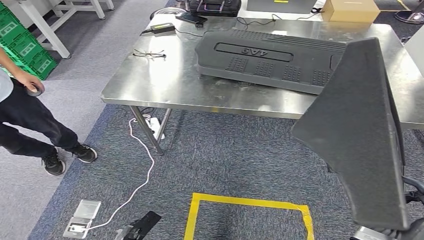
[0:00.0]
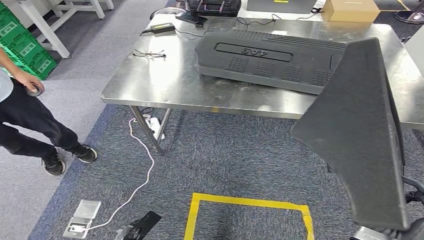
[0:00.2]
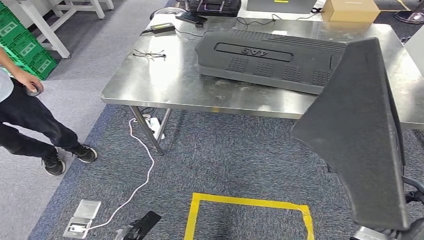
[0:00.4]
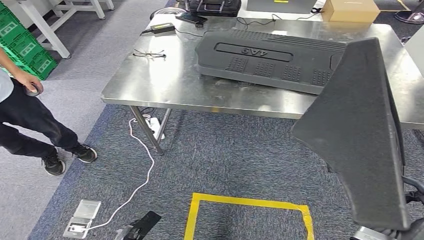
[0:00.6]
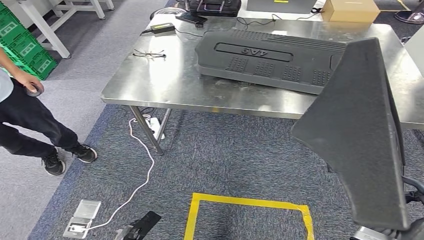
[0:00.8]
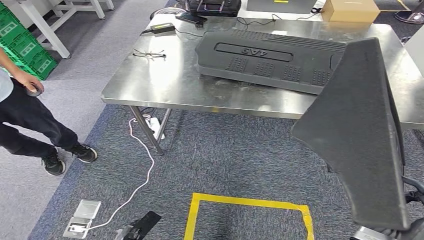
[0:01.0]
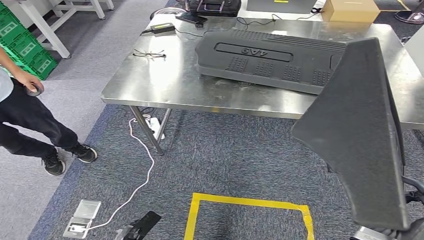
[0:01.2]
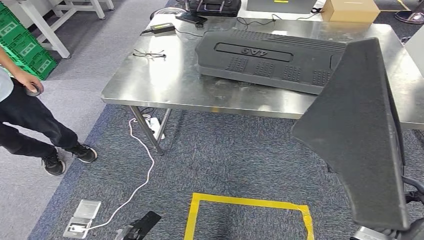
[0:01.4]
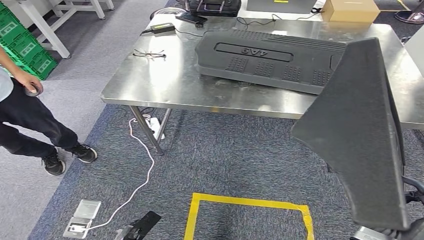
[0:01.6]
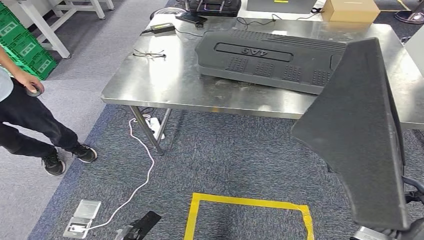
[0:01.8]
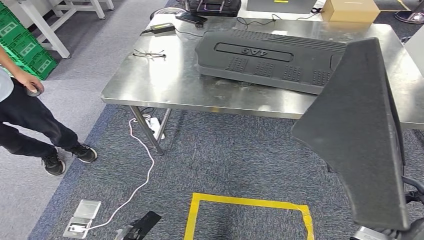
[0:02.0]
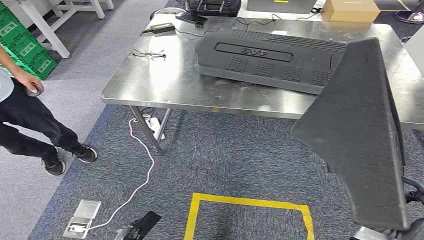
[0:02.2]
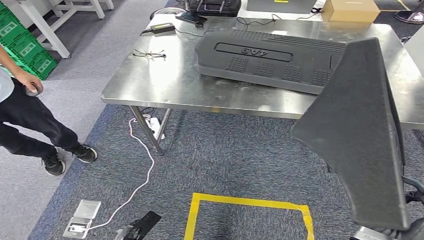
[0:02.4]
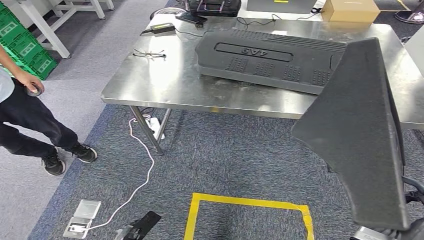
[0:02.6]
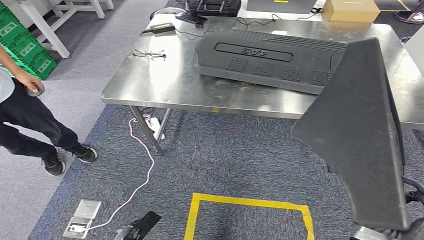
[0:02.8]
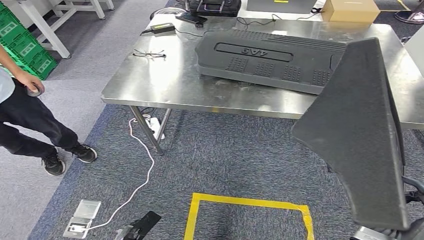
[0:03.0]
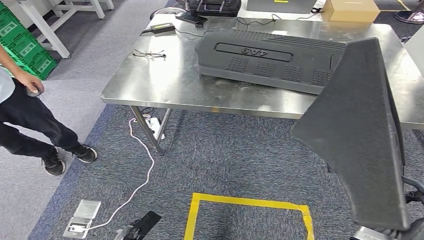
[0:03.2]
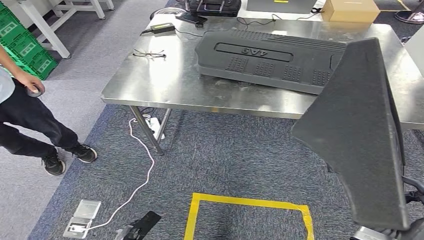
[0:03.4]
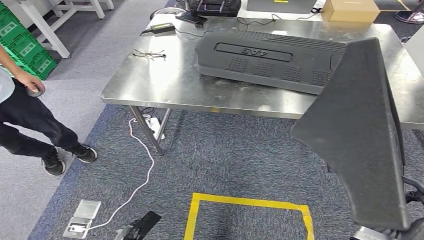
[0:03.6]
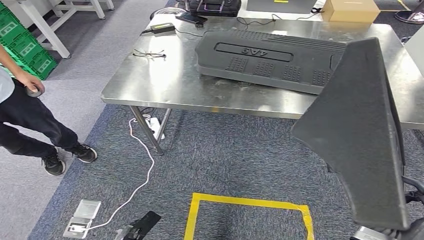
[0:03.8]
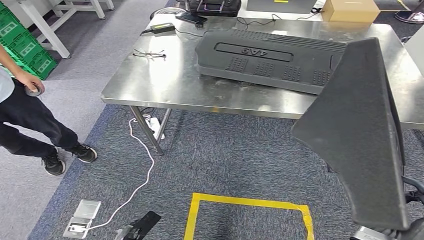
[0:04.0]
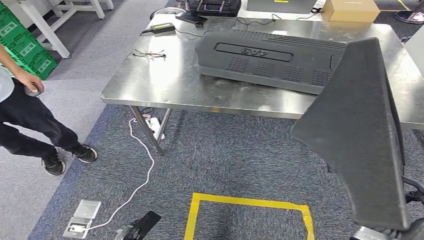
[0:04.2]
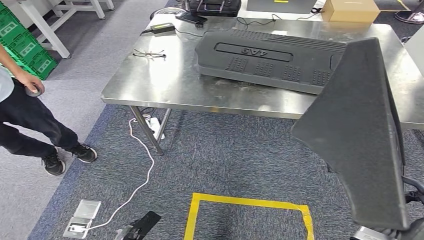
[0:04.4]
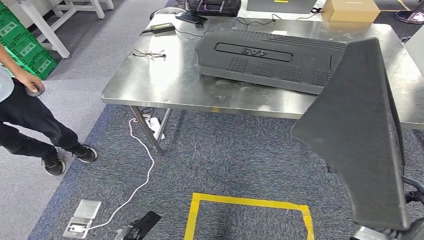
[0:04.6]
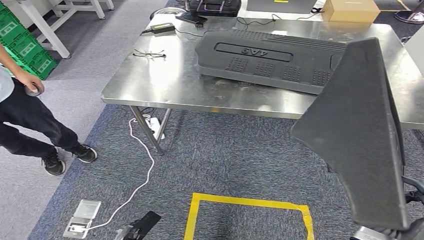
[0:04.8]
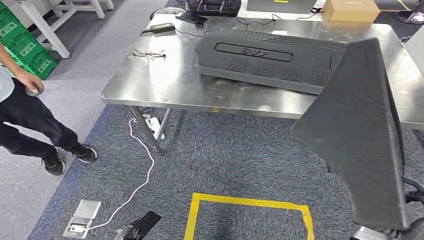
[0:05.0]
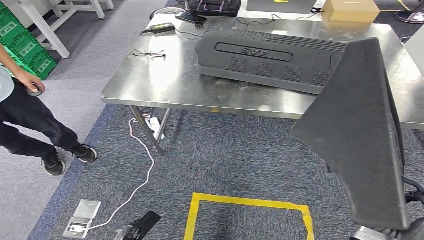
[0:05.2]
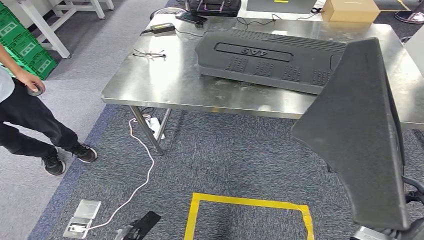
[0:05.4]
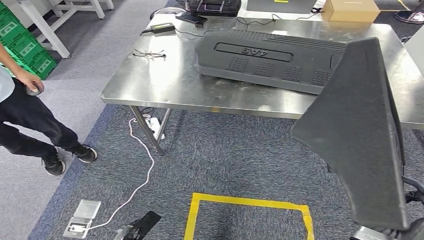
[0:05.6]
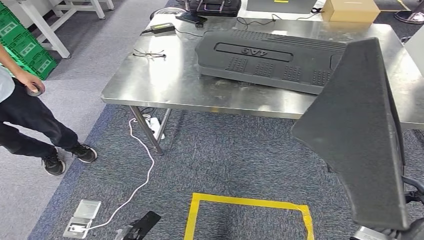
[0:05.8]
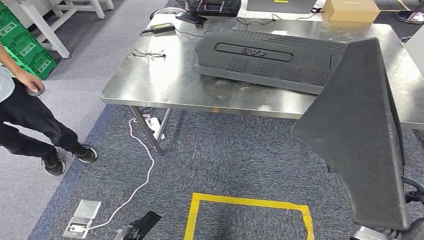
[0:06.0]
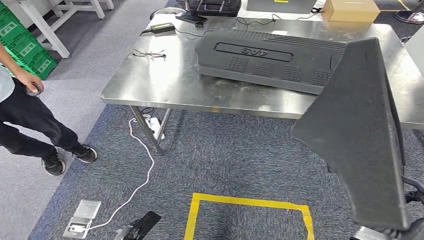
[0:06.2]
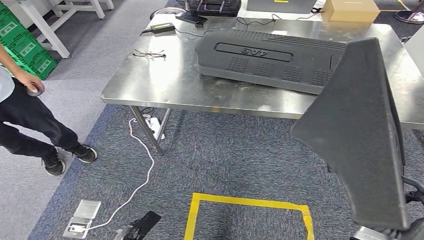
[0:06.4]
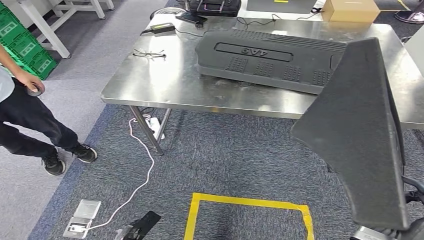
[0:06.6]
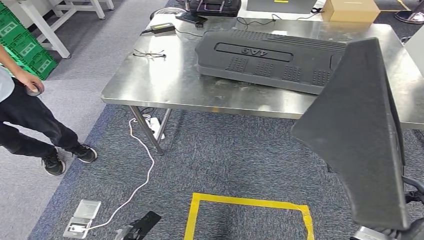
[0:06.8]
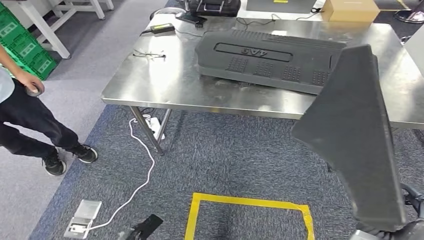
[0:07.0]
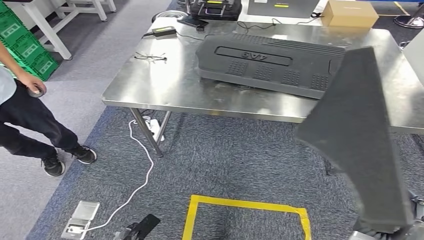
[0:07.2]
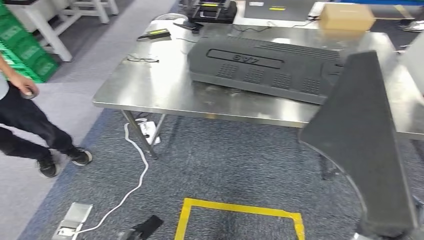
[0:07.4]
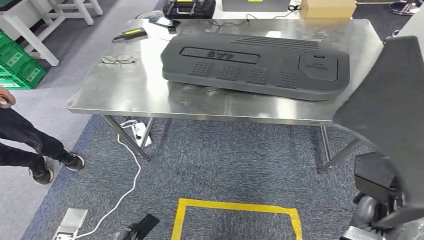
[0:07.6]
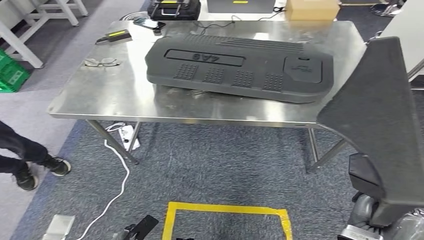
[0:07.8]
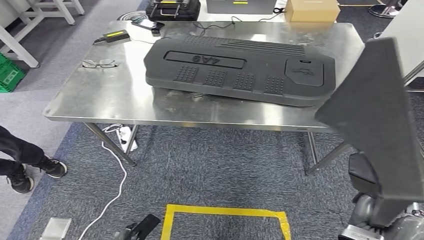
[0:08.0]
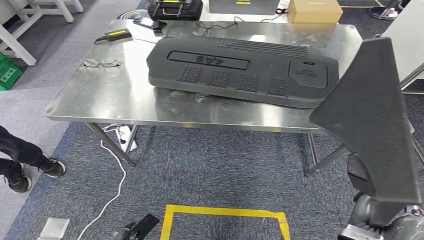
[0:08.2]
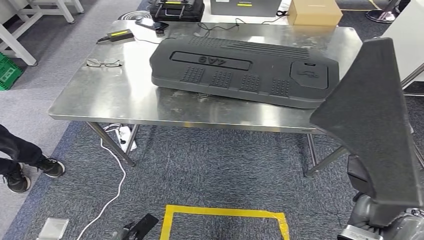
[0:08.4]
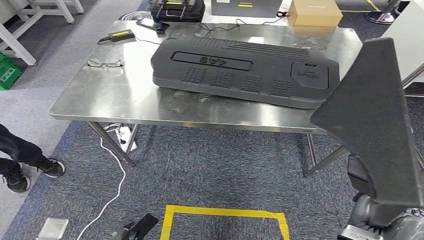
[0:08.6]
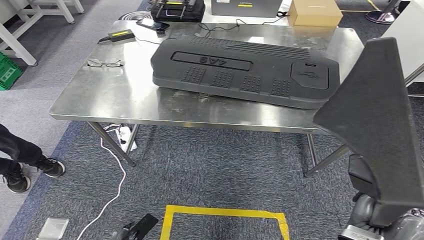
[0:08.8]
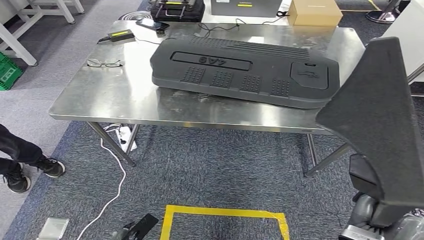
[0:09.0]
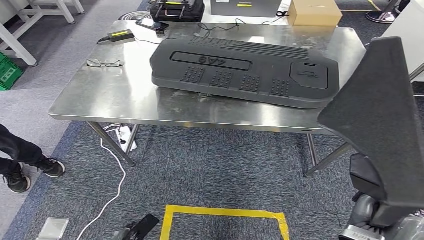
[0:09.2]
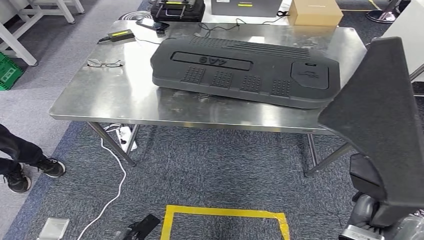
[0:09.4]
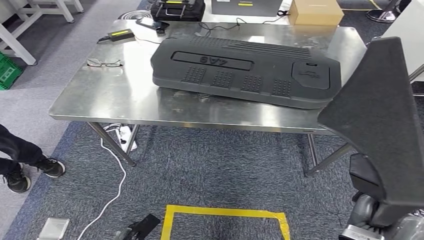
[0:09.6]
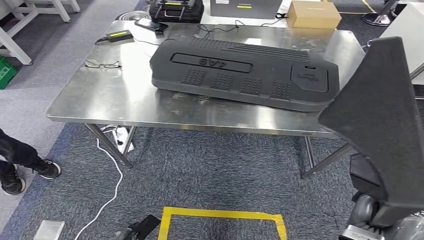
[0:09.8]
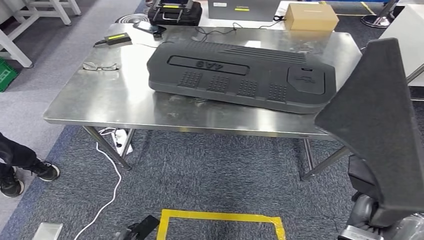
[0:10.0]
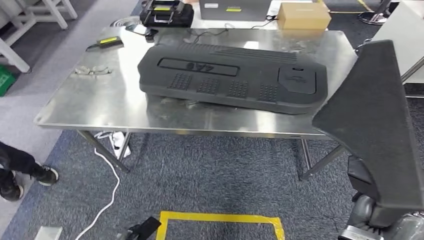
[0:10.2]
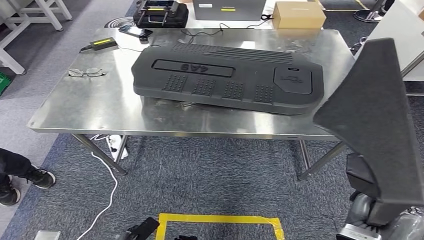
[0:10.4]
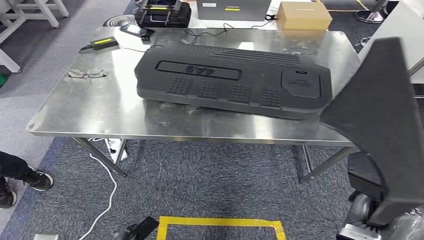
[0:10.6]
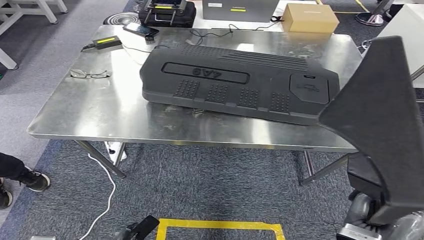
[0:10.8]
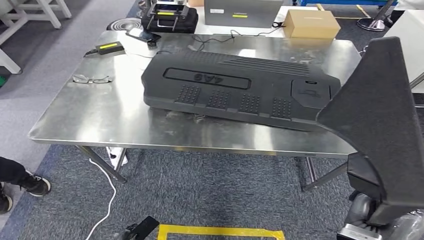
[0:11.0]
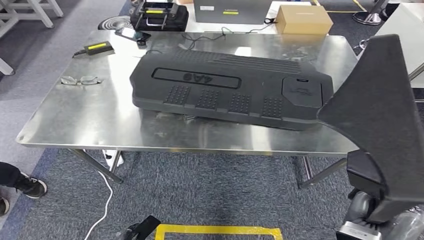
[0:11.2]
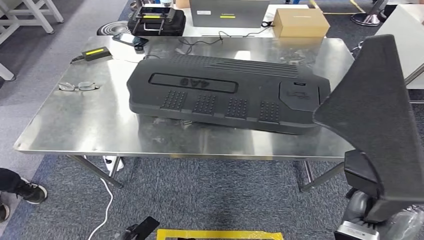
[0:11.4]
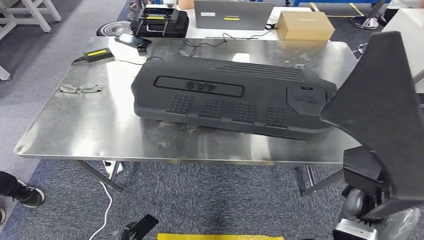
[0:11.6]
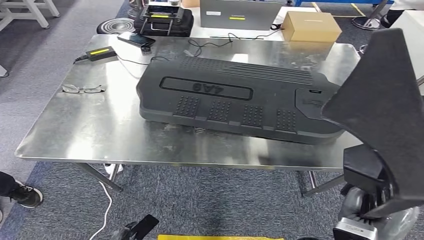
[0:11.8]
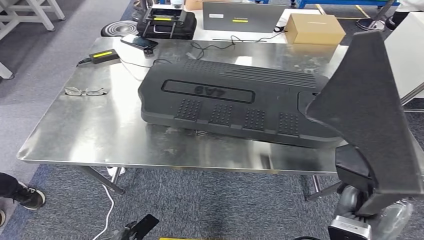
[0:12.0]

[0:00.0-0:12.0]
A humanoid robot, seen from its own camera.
0:00.0 to 0:06.0: Neither hand changes place.

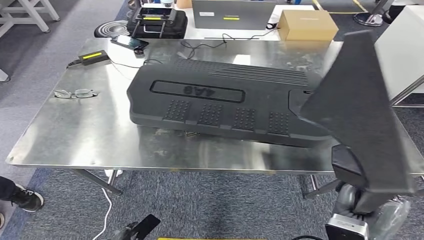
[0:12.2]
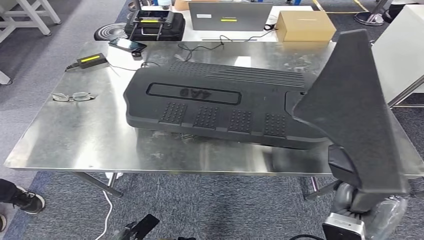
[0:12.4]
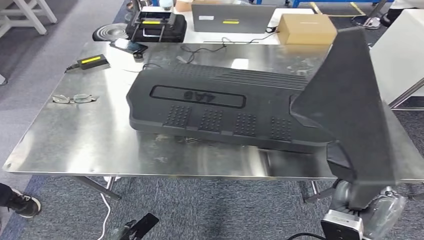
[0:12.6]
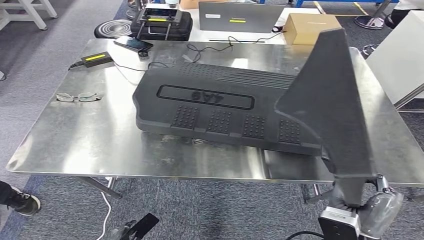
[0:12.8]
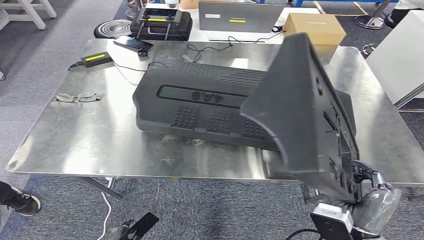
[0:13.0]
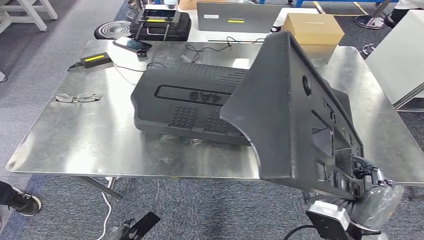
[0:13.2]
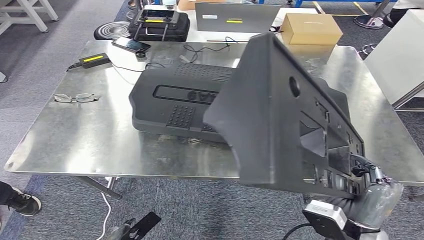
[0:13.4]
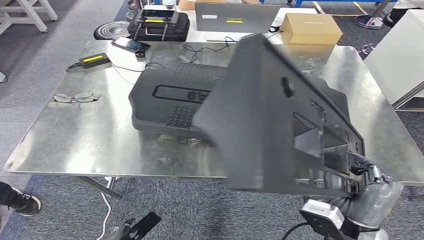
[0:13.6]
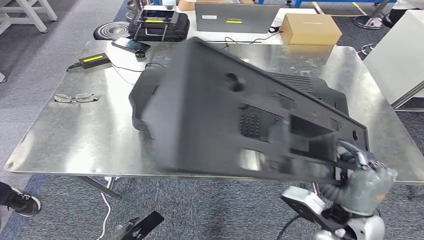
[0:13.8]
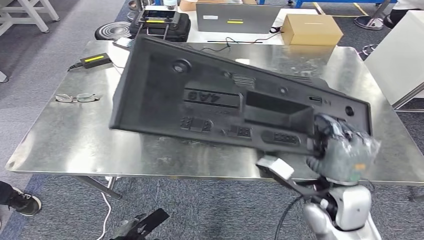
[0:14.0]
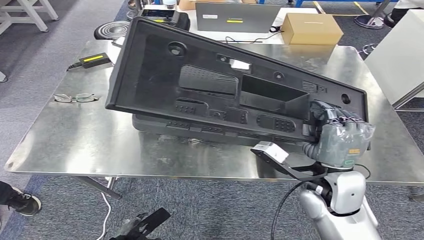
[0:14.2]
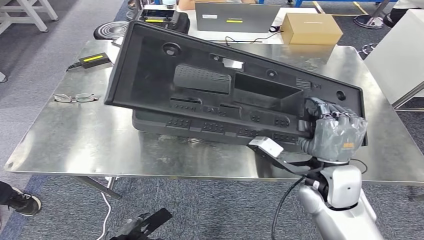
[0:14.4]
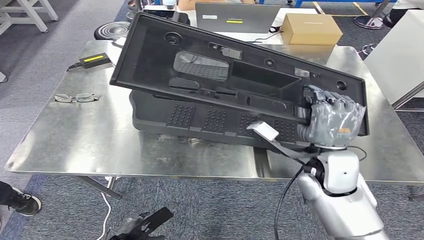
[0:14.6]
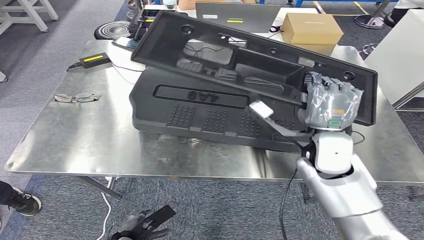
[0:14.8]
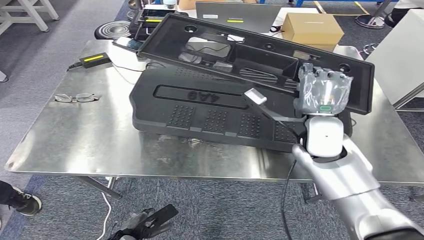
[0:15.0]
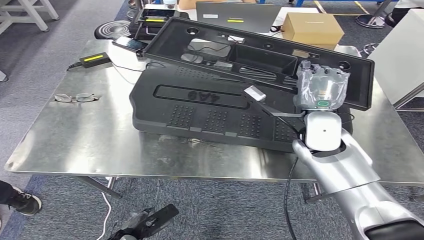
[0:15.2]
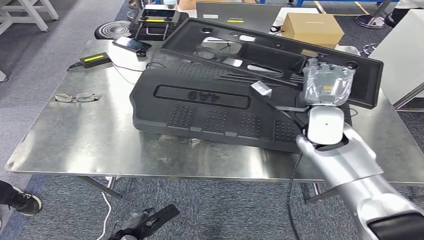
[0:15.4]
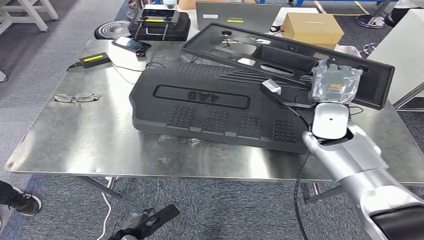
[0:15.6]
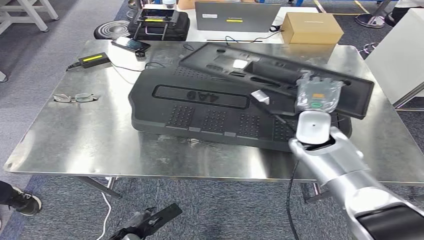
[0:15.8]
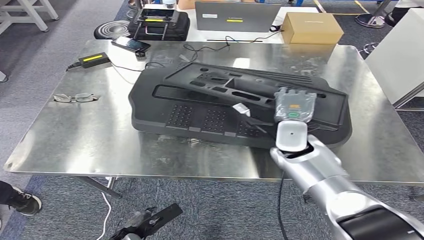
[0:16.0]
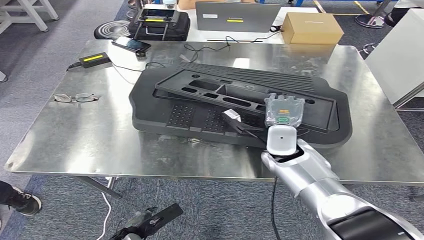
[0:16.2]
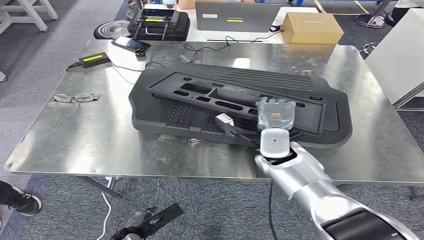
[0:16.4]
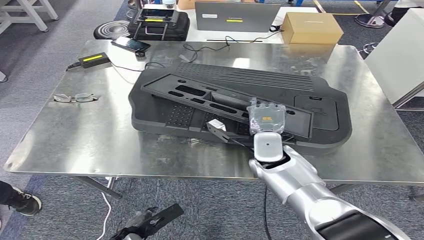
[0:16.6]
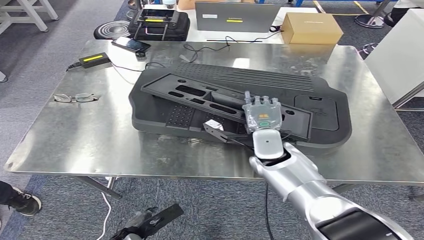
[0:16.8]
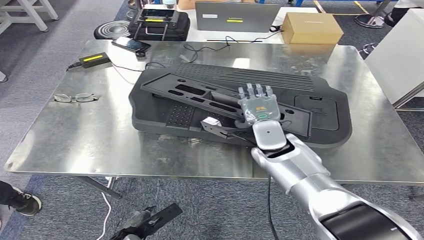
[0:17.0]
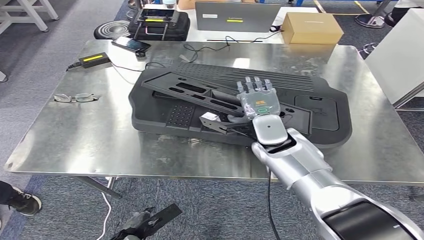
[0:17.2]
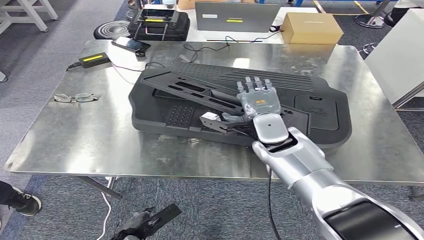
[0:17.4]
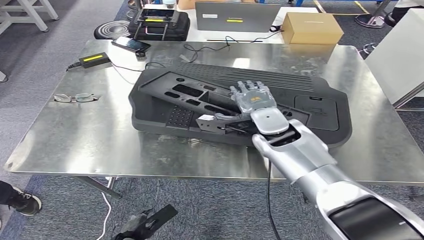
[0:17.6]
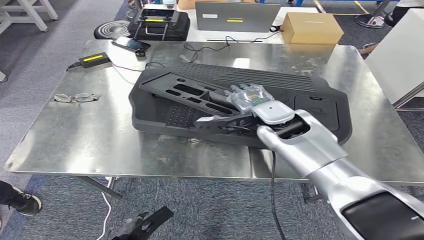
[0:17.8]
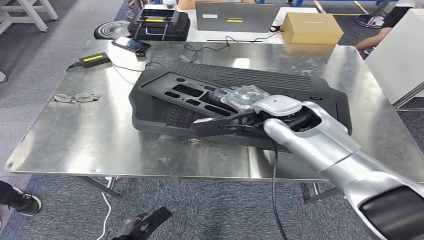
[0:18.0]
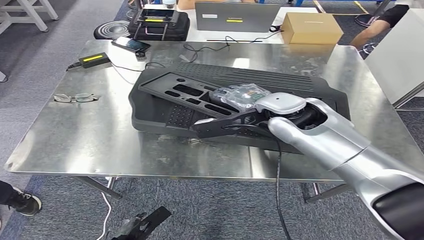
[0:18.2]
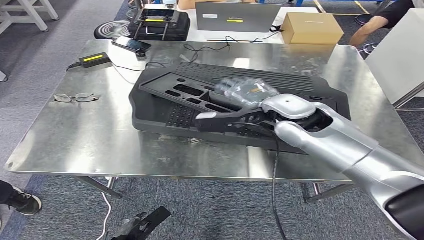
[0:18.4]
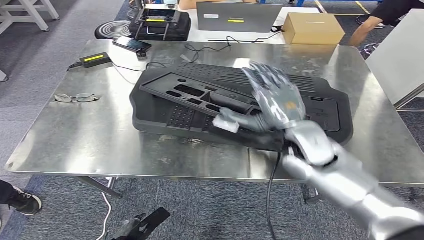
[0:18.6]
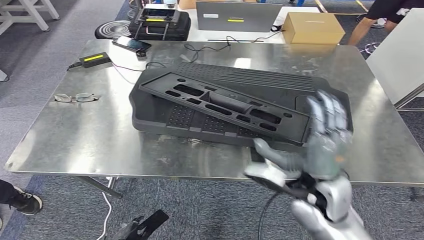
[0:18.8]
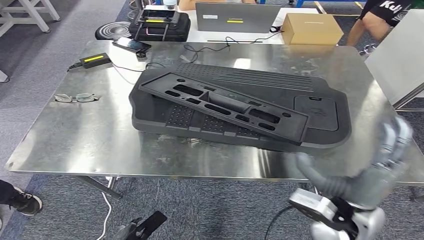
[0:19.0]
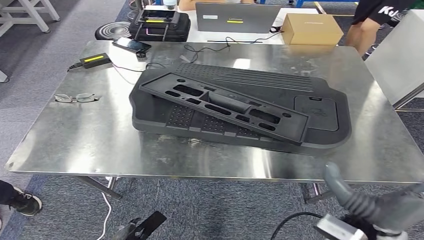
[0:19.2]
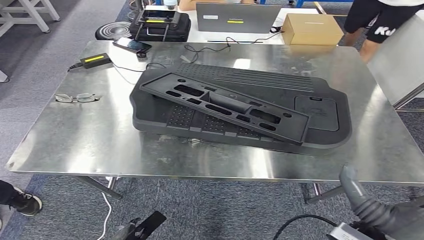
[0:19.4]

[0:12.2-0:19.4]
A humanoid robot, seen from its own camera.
Step, 0:12.4 to 0:18.2: Insert the large material into the corresponding hole on the workbench.
0:16.6 to 0:18.0: The right hand is displaced upward by approximately 15 cm.
